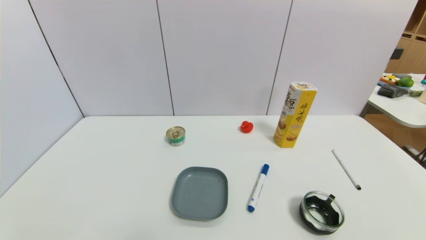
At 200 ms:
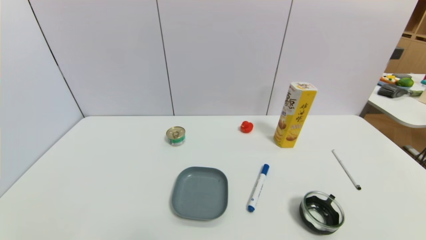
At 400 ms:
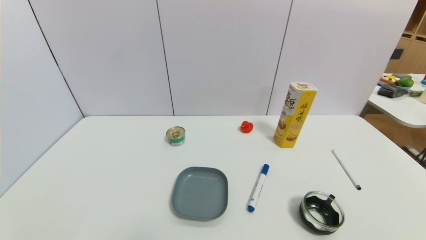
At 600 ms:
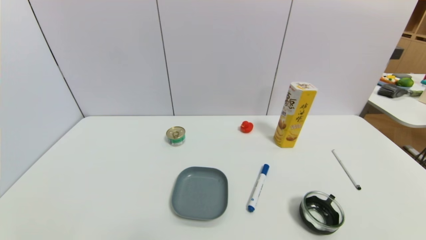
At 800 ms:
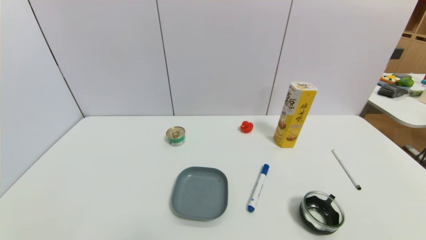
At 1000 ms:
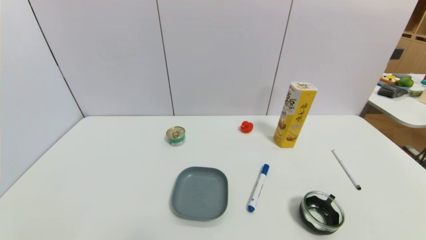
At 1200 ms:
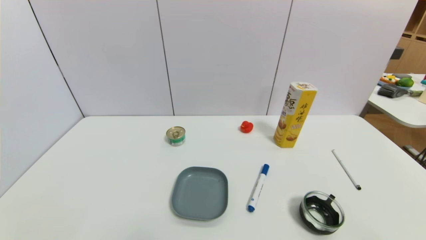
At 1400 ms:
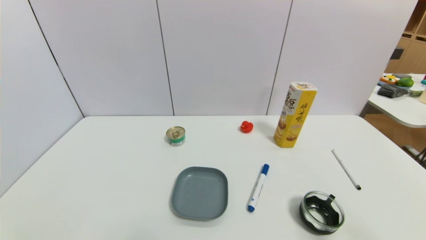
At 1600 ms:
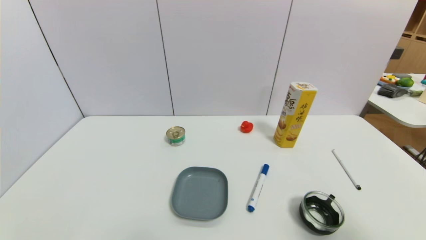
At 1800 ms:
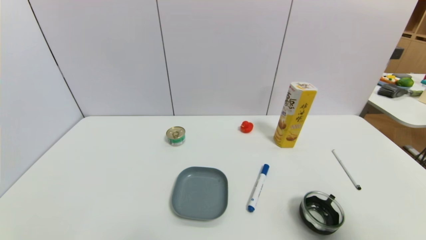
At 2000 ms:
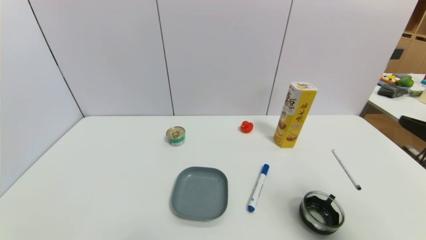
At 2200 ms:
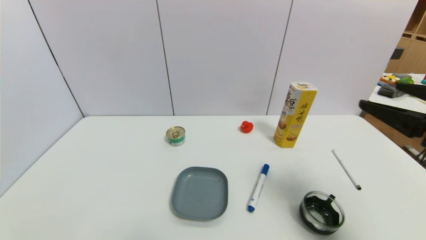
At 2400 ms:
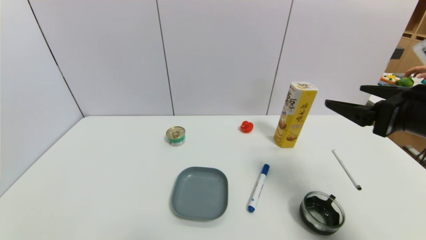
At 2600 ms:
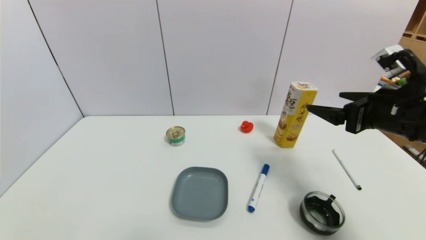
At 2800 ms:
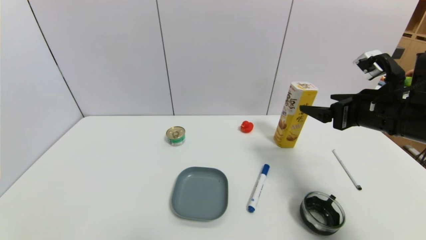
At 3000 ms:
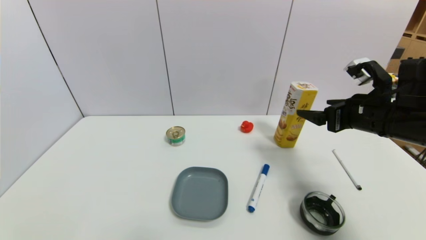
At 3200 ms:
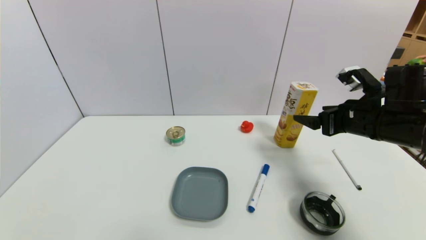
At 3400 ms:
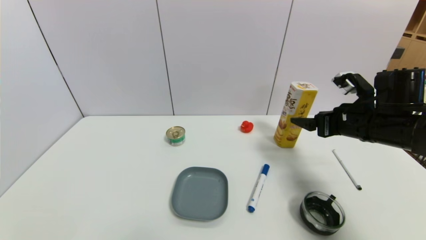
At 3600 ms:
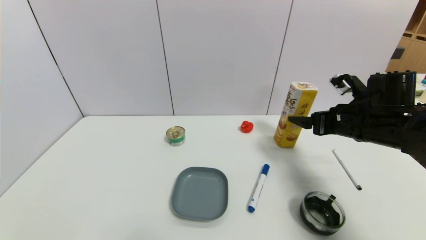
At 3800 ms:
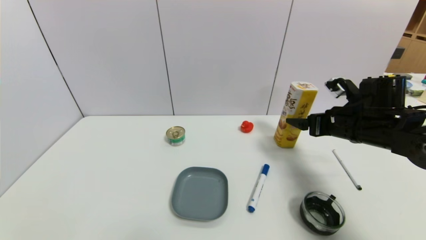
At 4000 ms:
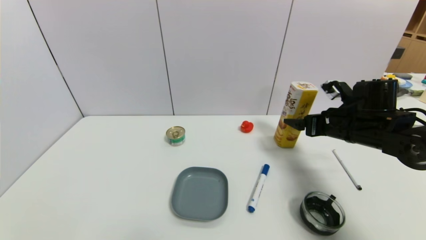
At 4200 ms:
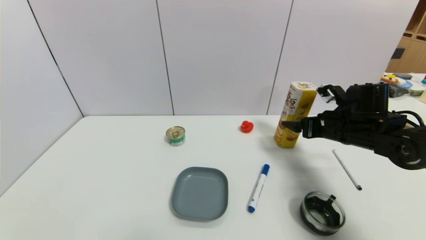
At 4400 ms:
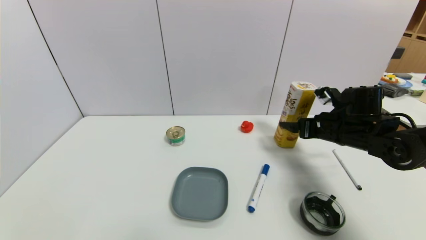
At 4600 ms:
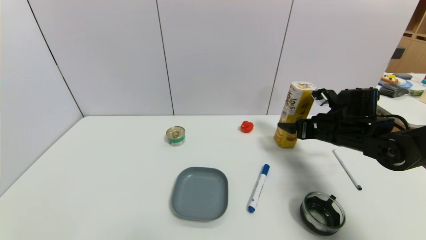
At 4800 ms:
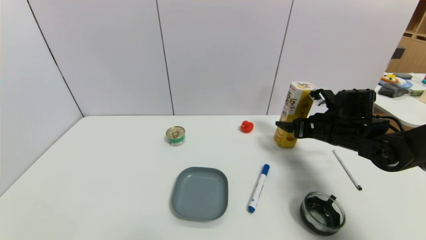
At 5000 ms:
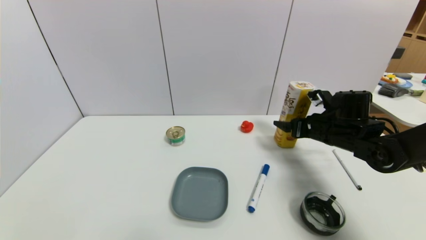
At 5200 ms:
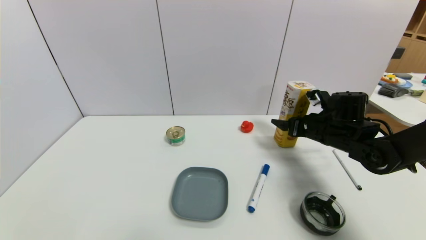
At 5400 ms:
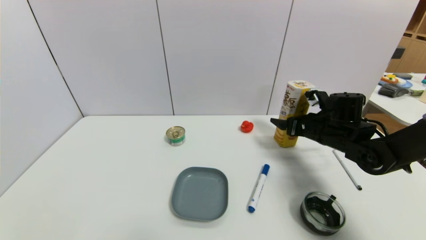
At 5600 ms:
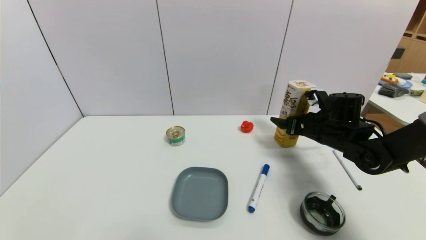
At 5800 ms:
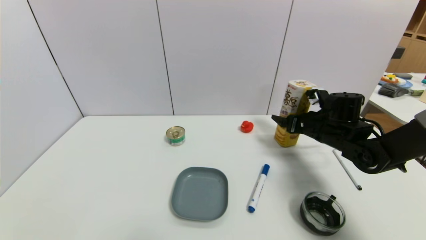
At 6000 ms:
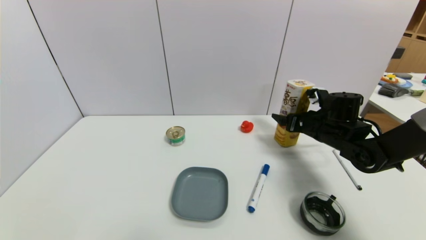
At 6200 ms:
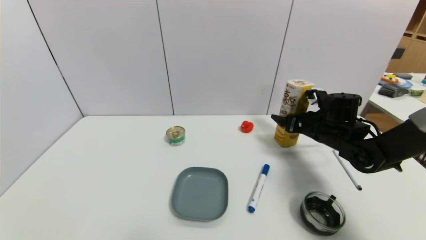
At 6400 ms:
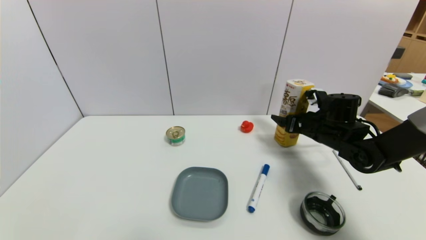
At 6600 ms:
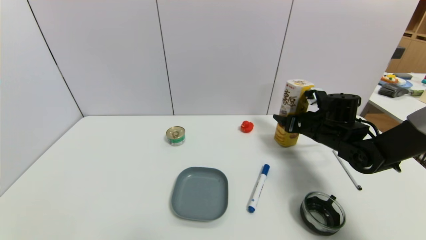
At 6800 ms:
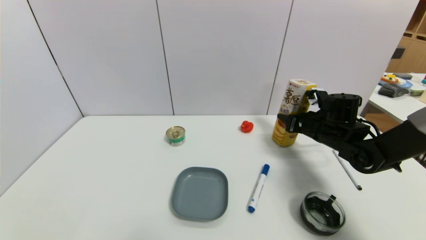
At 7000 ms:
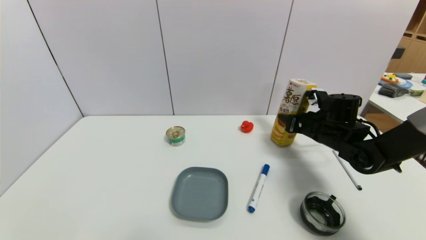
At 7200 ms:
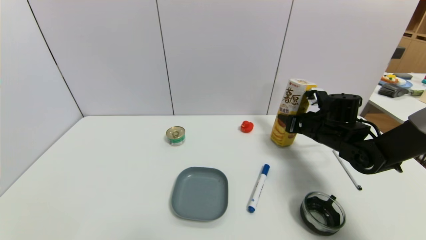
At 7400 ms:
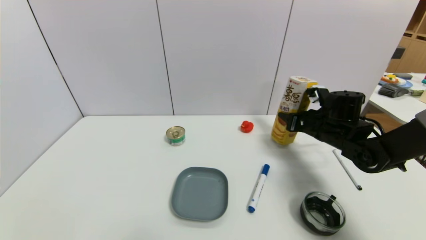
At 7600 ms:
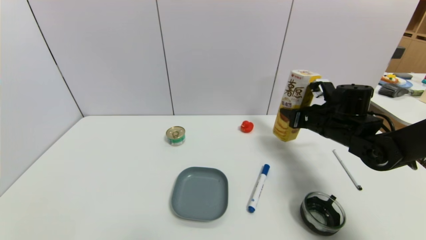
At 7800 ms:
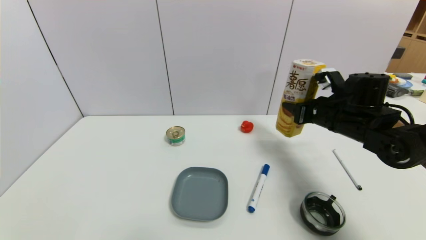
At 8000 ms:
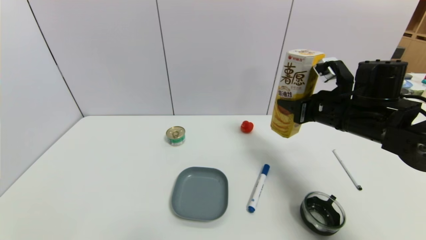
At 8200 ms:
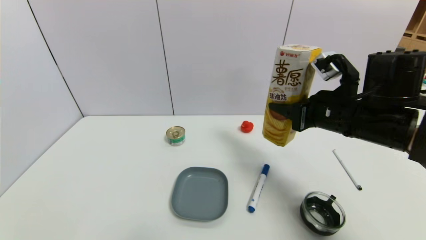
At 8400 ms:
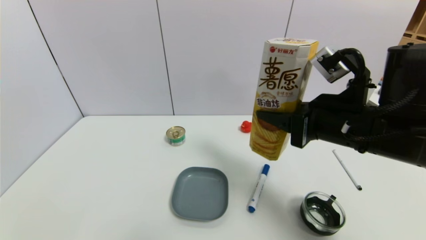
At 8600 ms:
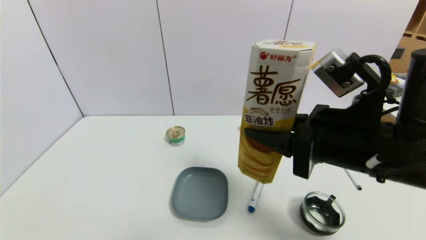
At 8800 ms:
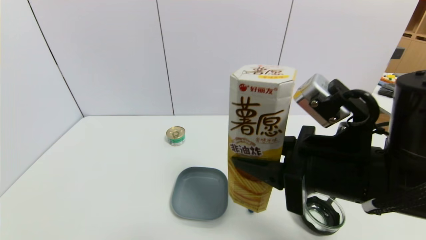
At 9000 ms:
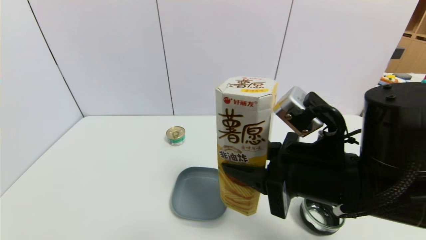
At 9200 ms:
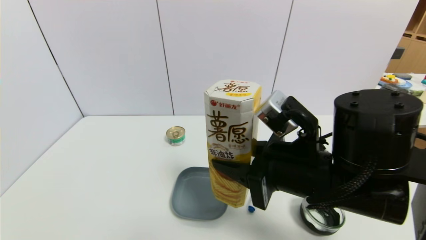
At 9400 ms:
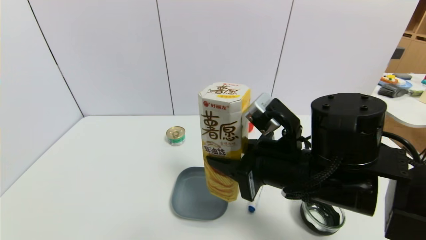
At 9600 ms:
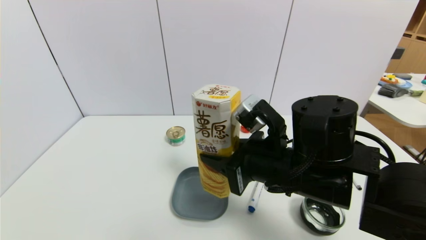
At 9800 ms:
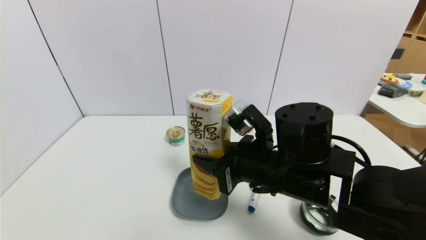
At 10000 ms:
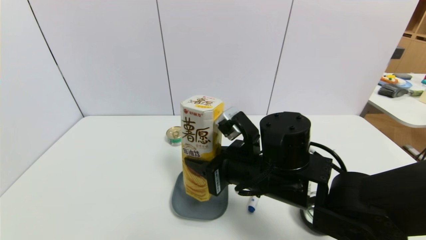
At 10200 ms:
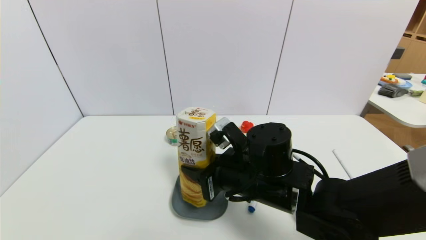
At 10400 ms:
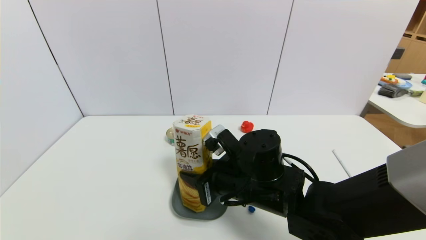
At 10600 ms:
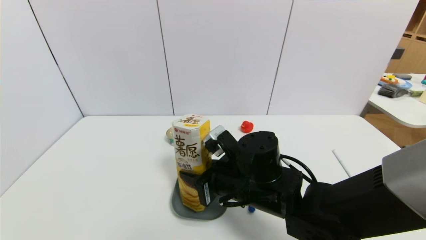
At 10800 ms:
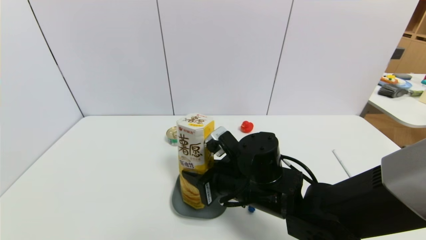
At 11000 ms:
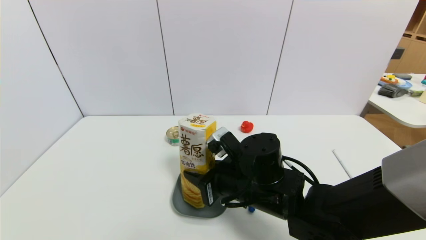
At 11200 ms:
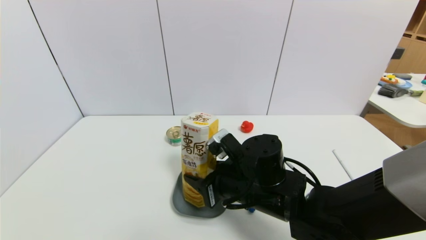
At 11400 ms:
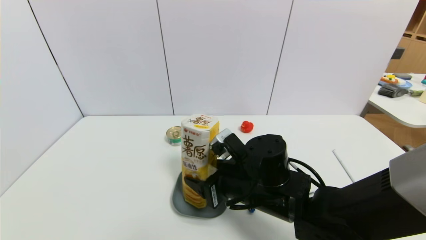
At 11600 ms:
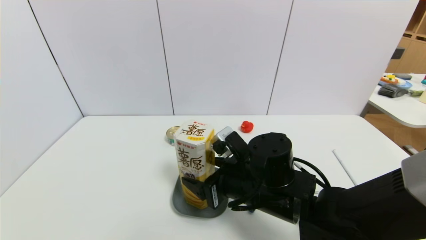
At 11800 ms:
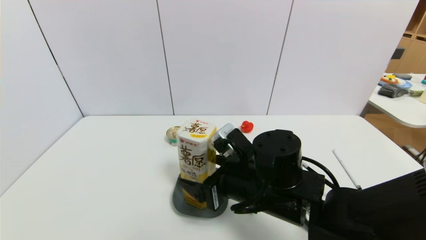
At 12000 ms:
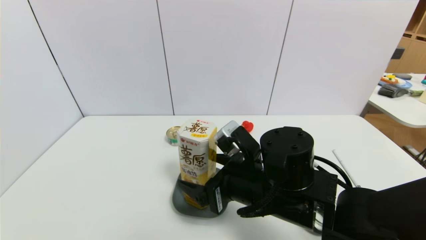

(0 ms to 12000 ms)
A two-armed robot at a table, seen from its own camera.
Task of the whole recording: use a gripper to pick the target object and place on the dish.
Step, 0 ms - 7200 ms: Grasp the potato chips with the right gripper.
1600 ms - 3000 ms: The right gripper shifts approximately 25 cm forward.
3000 ms - 4400 ms: The right gripper goes approximately 10 cm downward and forward.
4400 ms - 6000 ms: The grippers make only small movements.
6000 ms - 7600 ms: The right gripper closes.
7600 ms - 9000 ms: The right gripper goes approximately 25 cm backward and to the left.
9000 ms - 10400 ms: The right gripper shifts some 15 cm downward, to the left and forward.
10400 ms - 12000 ms: The right gripper opens its fingers.

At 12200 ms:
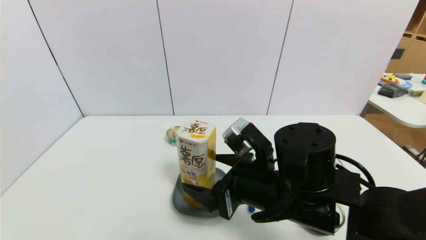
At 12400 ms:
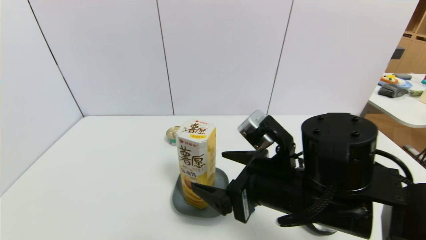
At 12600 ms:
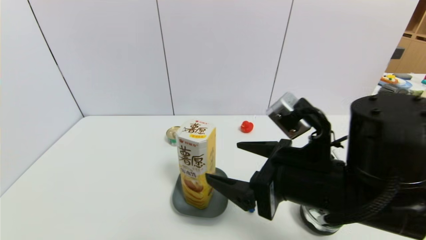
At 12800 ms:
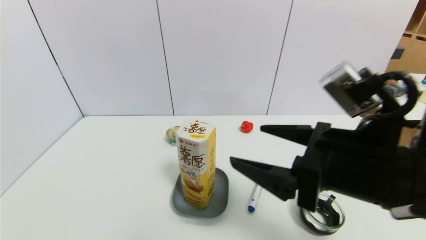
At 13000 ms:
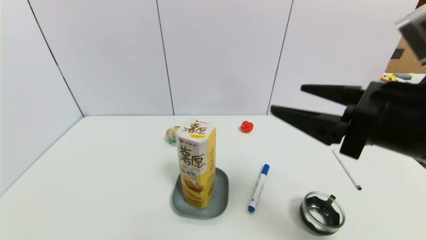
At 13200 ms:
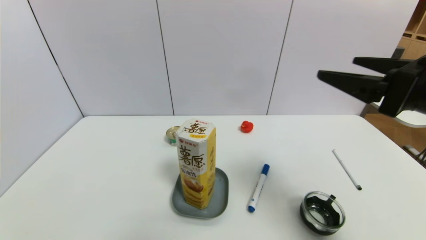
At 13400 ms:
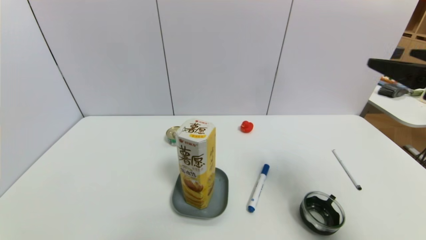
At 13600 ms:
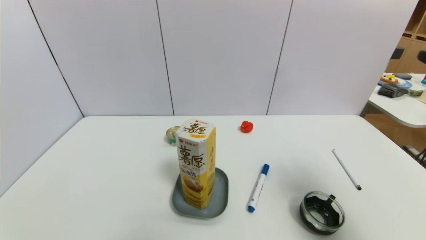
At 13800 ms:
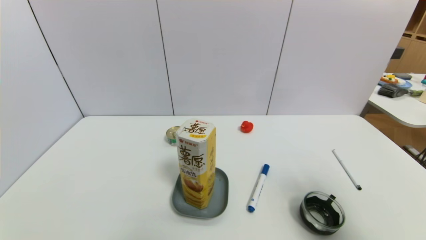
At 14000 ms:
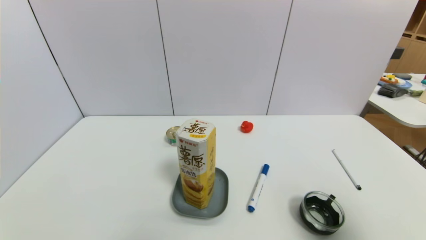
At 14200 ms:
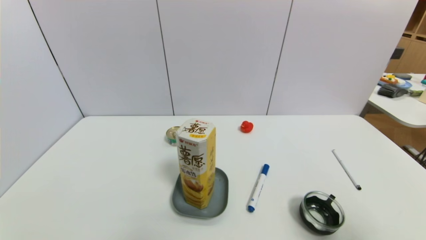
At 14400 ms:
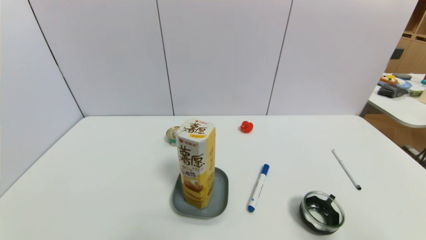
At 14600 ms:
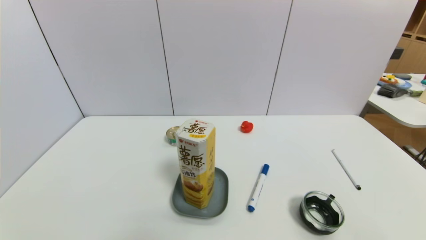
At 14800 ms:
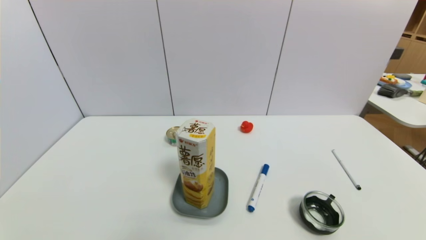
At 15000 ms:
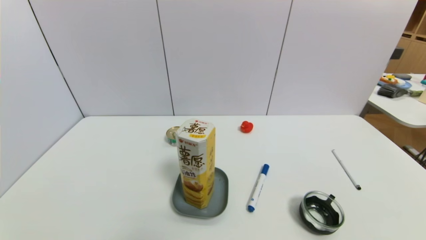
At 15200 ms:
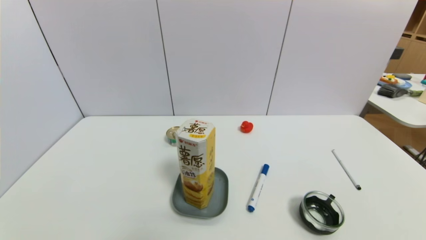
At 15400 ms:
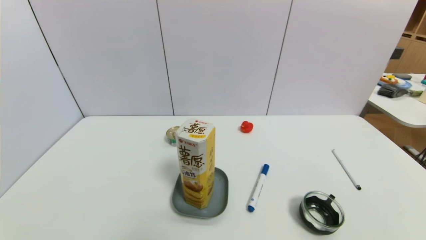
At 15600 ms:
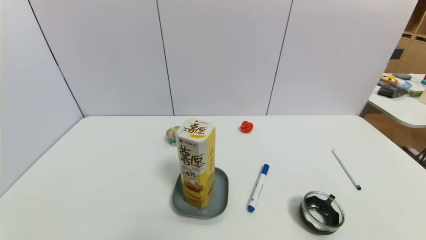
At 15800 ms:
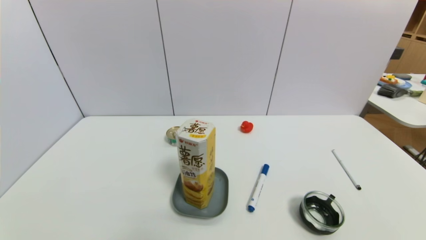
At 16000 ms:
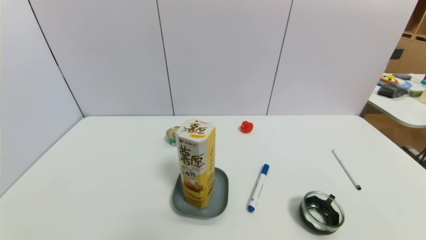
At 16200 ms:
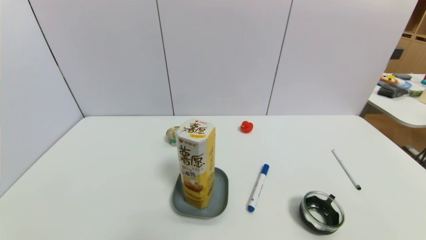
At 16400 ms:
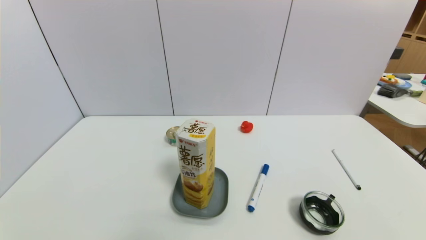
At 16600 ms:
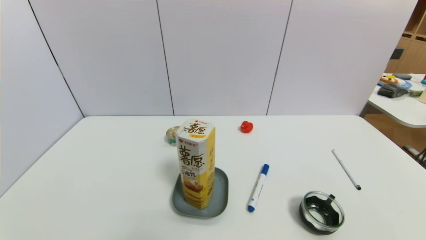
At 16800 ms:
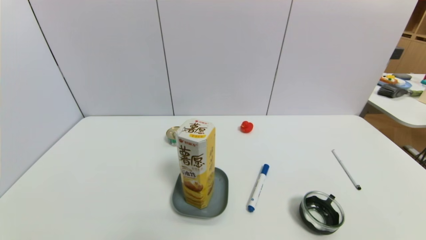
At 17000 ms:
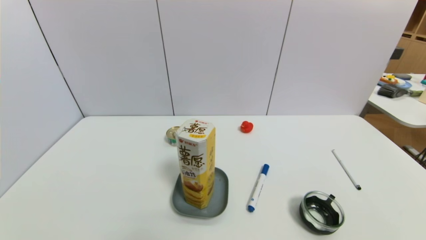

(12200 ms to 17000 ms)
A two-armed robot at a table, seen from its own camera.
Task of the whole recording: use a gripper to pick the target object and place on the dish.
12200 ms - 13800 ms: The right gripper is displaced to the right, upward and backward by approximately 30 cm.
13800 ms - 15400 ms: The right gripper moves downward and backward, roughly 25 cm.
15400 ms - 17000 ms: Neither gripper changes place.
